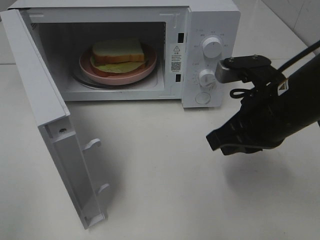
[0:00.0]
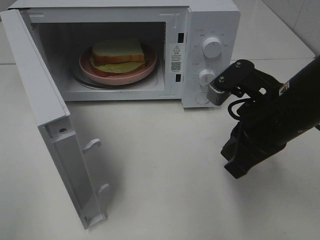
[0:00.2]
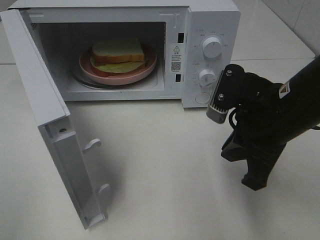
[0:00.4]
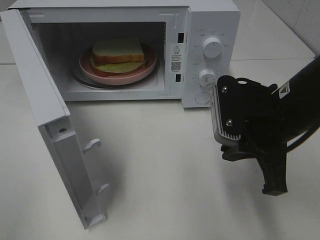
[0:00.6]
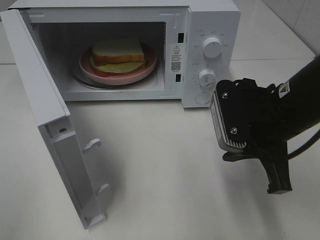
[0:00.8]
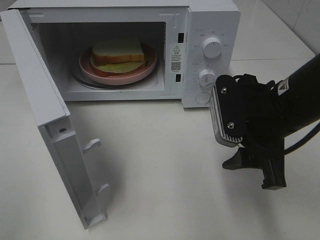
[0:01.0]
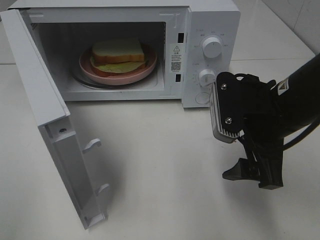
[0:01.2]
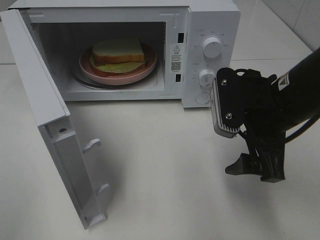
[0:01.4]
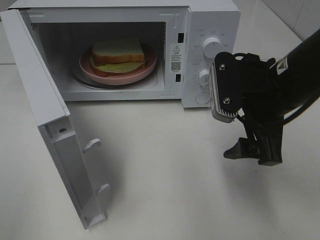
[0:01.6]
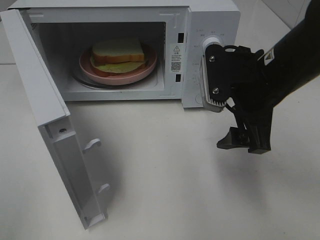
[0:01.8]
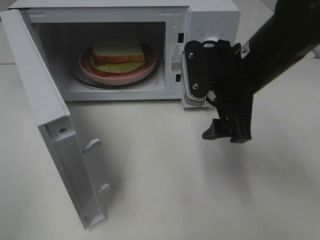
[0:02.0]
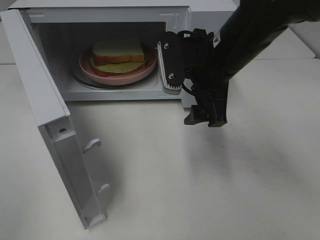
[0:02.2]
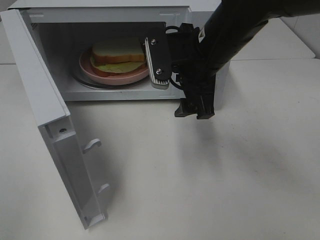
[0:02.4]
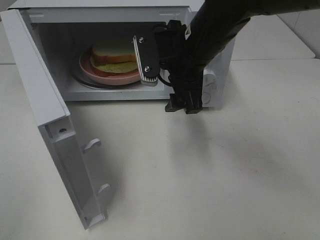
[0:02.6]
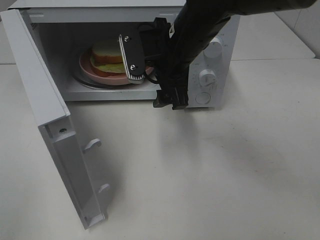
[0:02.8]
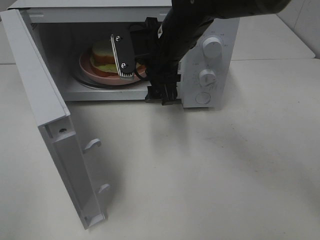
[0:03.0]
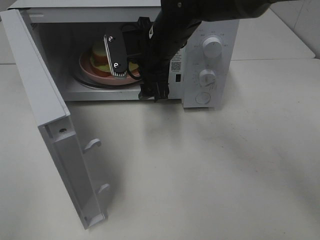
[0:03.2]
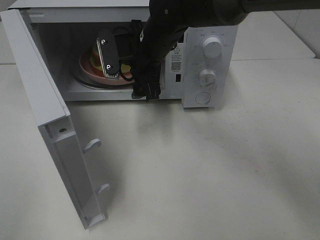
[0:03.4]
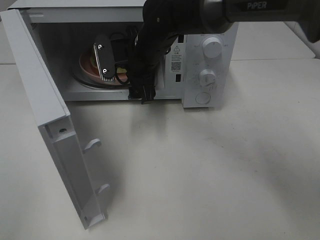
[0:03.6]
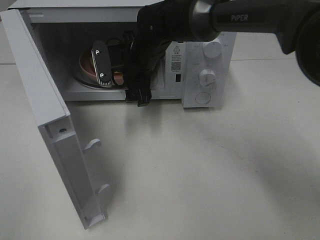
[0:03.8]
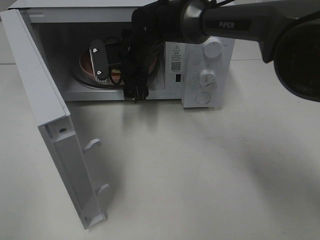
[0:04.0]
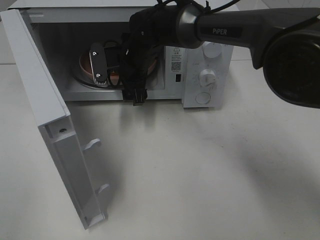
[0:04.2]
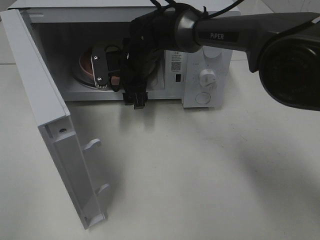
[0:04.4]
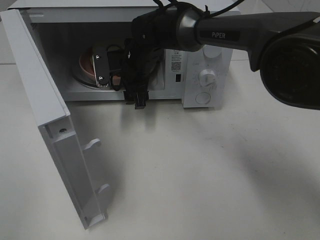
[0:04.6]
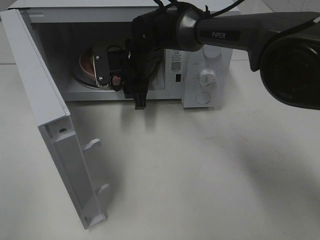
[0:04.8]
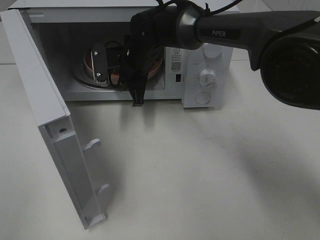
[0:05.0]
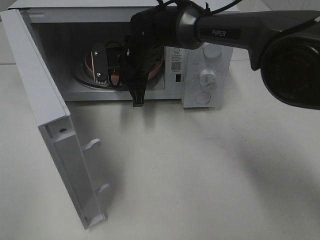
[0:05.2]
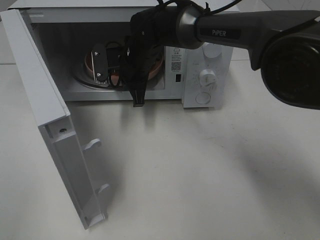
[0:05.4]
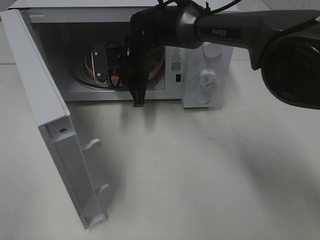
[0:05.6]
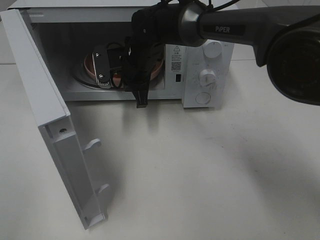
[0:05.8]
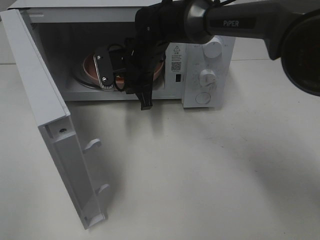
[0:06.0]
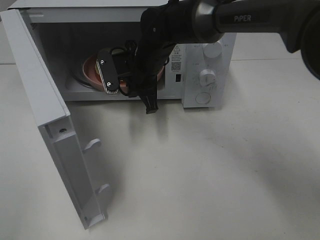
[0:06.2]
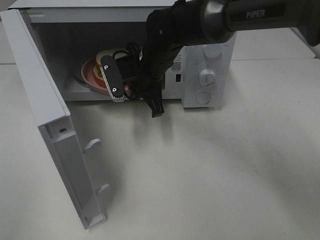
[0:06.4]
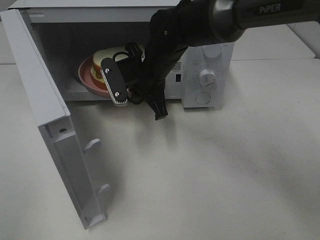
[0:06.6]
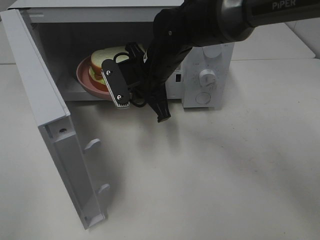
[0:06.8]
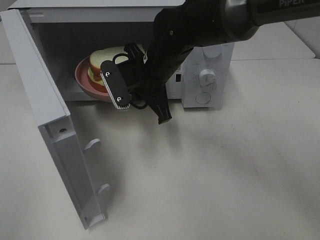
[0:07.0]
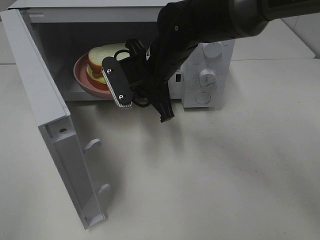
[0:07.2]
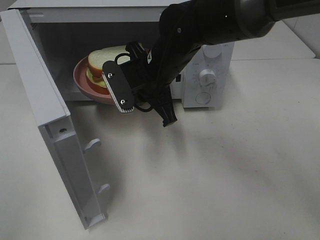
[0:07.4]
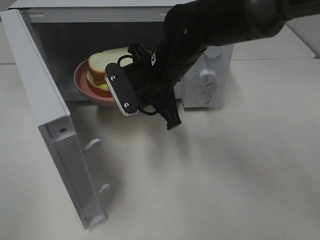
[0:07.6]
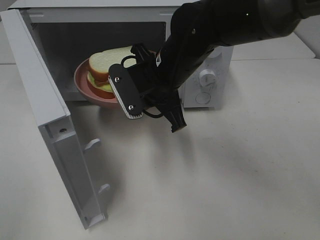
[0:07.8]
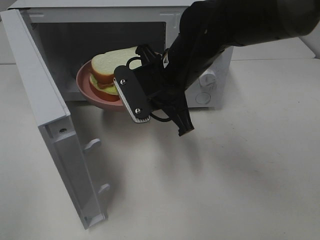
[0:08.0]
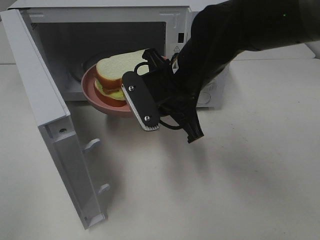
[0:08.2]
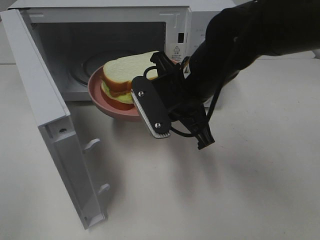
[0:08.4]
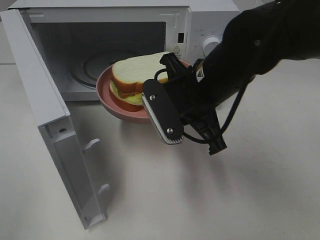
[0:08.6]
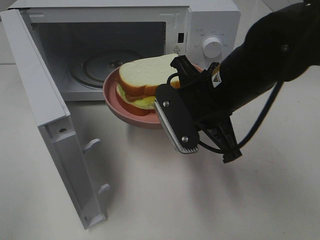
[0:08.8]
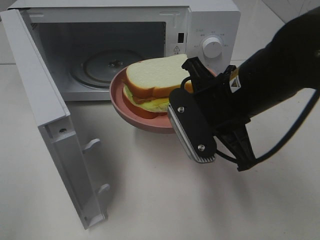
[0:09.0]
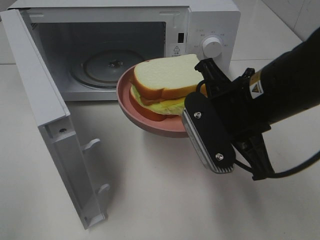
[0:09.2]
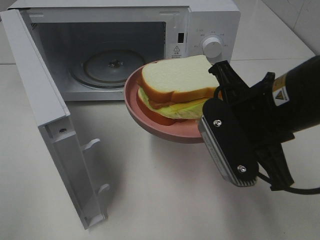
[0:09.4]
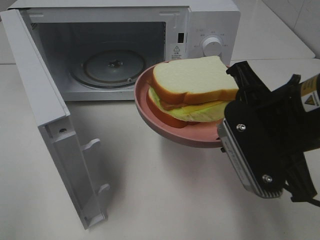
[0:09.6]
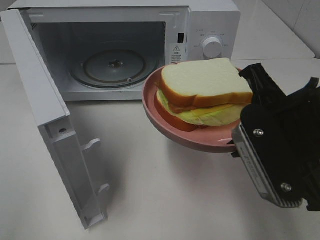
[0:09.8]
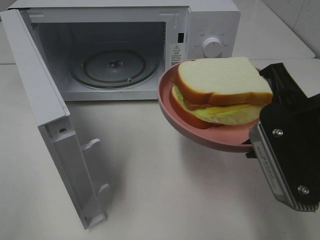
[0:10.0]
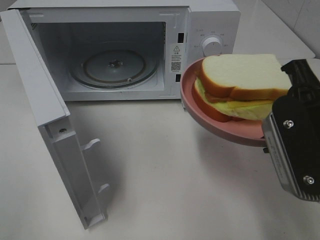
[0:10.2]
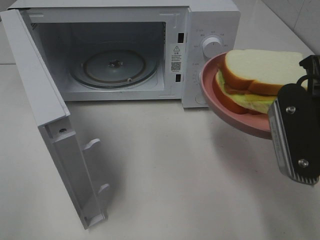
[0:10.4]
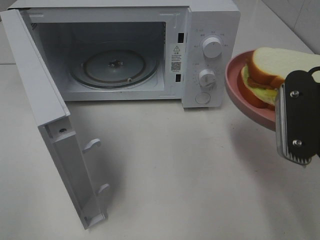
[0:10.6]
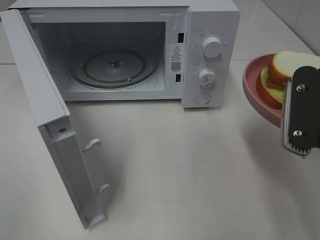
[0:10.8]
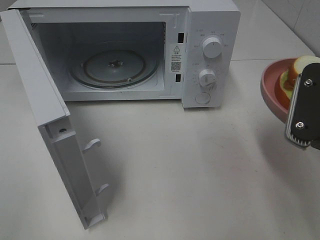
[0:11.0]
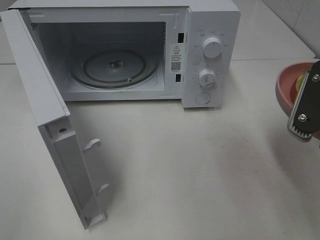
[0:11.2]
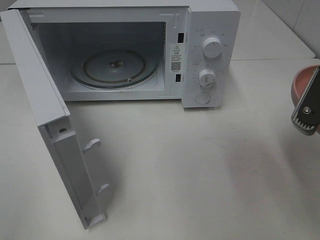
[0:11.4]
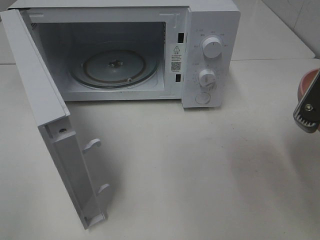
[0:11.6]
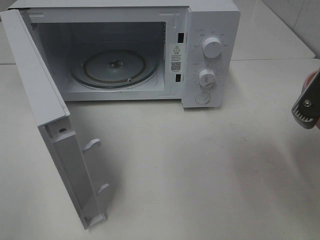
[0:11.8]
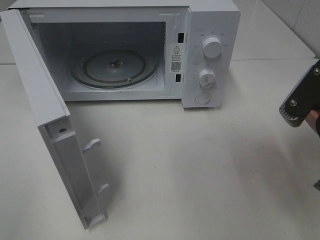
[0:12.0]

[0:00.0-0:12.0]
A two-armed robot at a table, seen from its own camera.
Task of the whole recording: Heat Sandwich.
Step, 0:00.0 to 0:05.4: Right hand: grab the plate with the sandwich.
0:00.0 to 0:01.6: The right gripper opens up.
0:01.6 to 0:03.0: The right gripper goes some 20 cm to the left and forward.
0:03.0 to 0:04.4: The right gripper travels forward, downward and to the left by some 10 cm.
0:04.4 to 0:06.0: The right gripper closes up.
0:06.0 to 0:07.6: The right gripper travels backward by some 10 cm.
0:07.6 to 0:09.0: The right gripper travels backward and to the right by approximately 15 cm.
0:09.0 to 0:10.4: The right gripper goes about 10 cm to the right and backward.

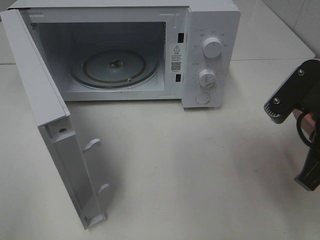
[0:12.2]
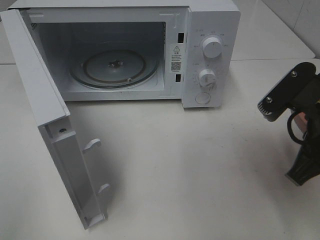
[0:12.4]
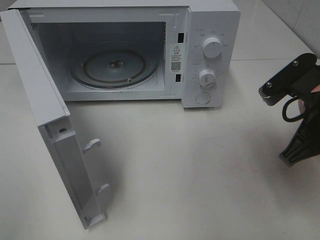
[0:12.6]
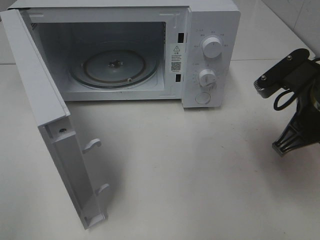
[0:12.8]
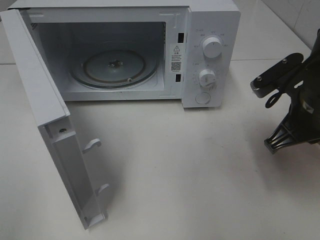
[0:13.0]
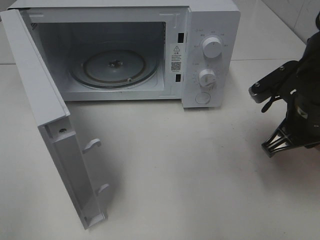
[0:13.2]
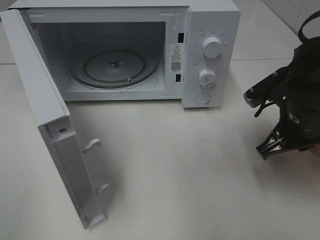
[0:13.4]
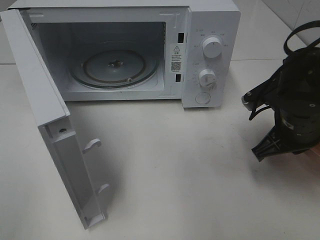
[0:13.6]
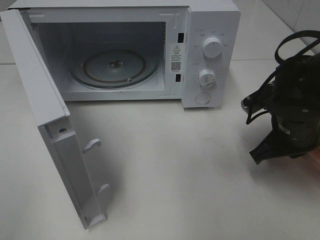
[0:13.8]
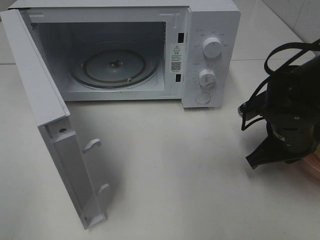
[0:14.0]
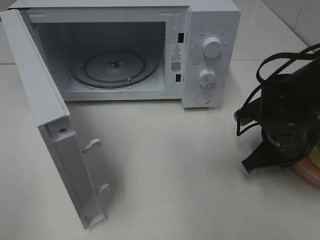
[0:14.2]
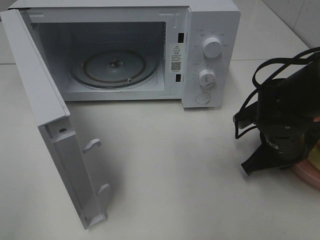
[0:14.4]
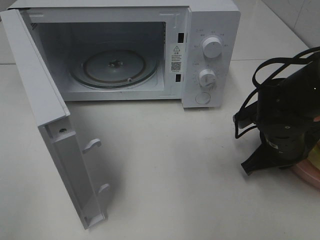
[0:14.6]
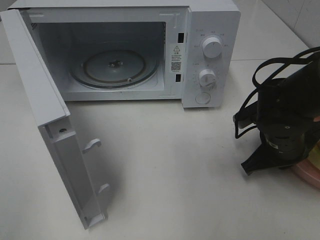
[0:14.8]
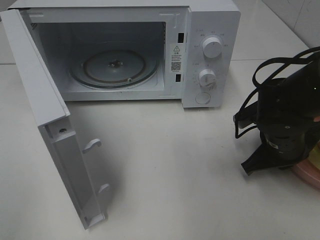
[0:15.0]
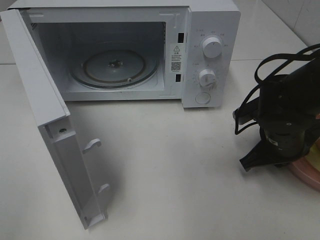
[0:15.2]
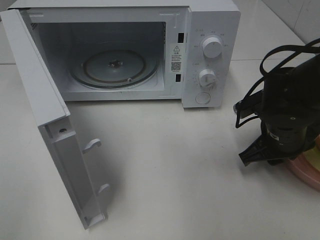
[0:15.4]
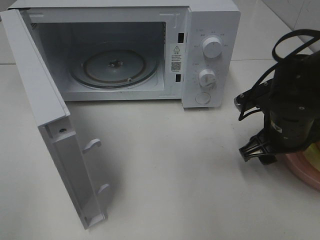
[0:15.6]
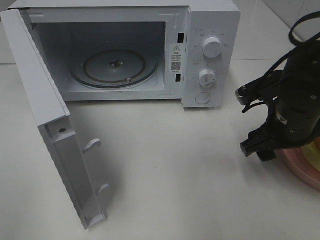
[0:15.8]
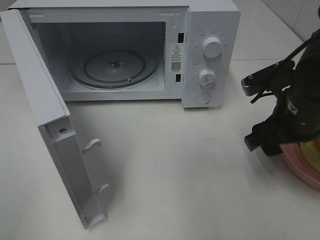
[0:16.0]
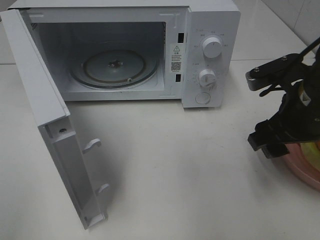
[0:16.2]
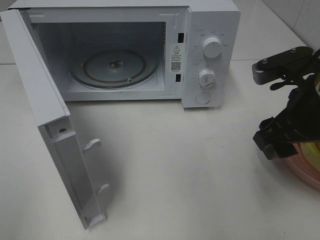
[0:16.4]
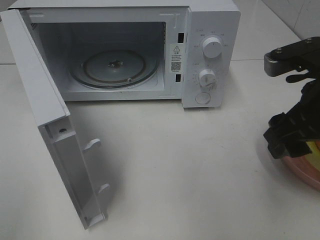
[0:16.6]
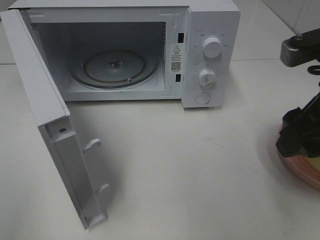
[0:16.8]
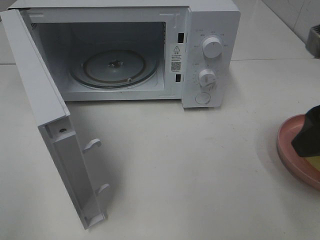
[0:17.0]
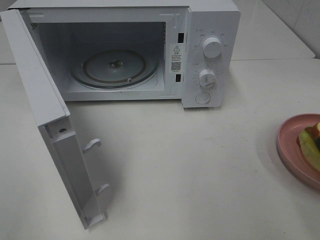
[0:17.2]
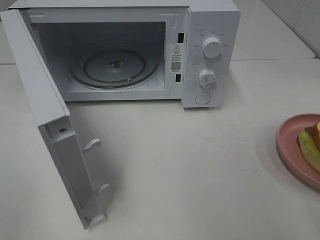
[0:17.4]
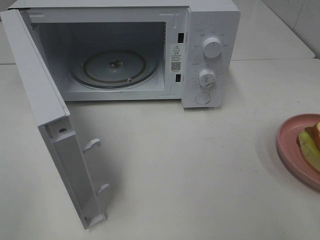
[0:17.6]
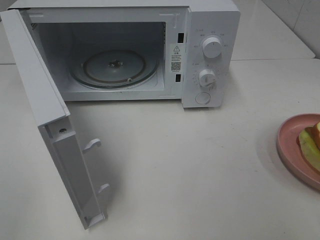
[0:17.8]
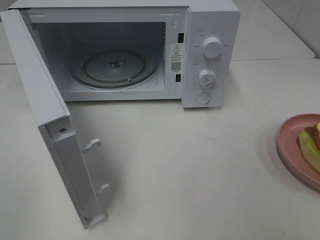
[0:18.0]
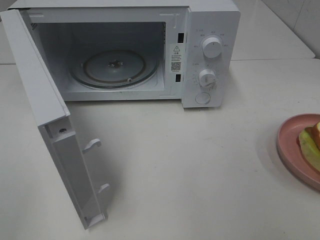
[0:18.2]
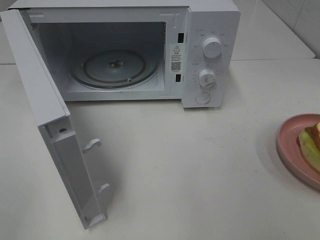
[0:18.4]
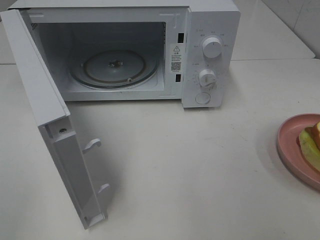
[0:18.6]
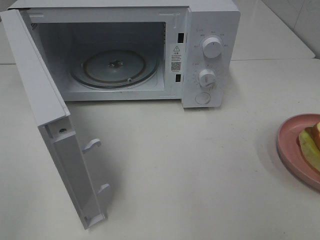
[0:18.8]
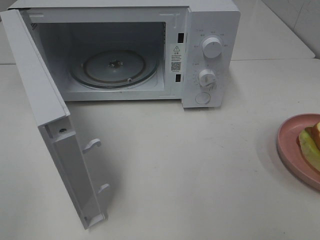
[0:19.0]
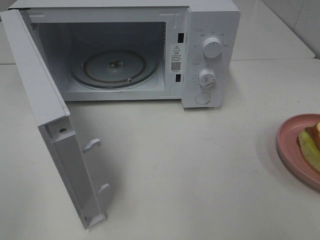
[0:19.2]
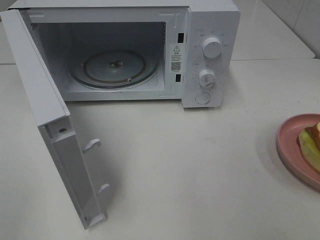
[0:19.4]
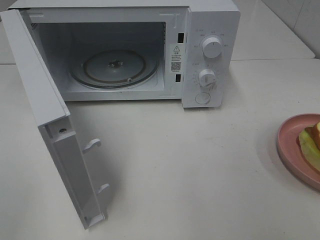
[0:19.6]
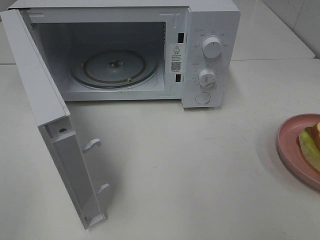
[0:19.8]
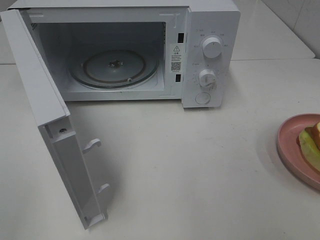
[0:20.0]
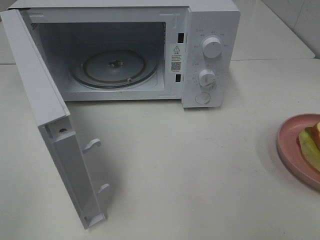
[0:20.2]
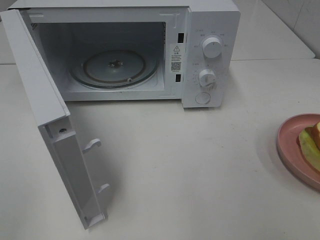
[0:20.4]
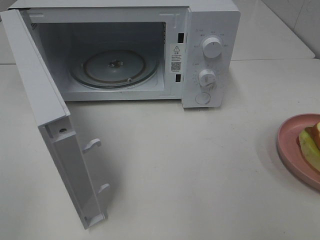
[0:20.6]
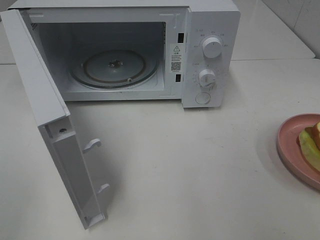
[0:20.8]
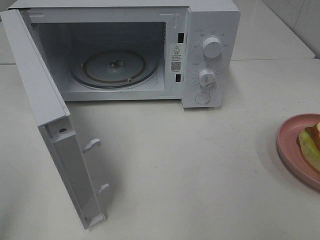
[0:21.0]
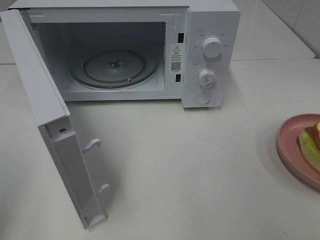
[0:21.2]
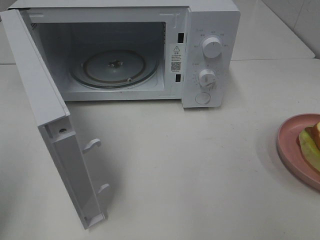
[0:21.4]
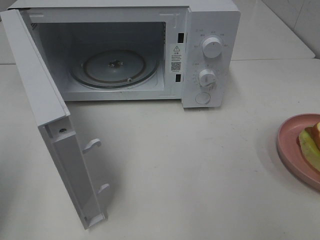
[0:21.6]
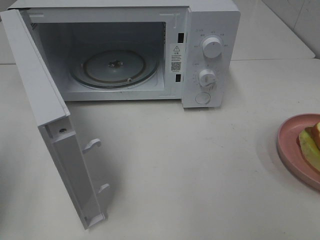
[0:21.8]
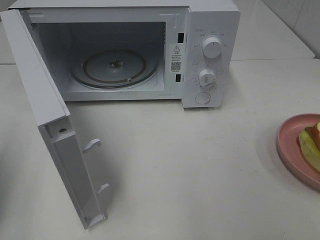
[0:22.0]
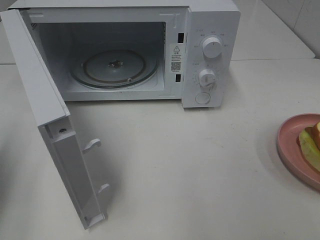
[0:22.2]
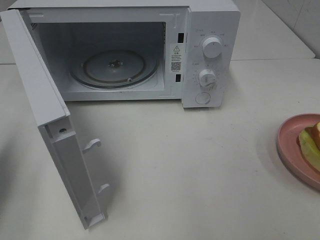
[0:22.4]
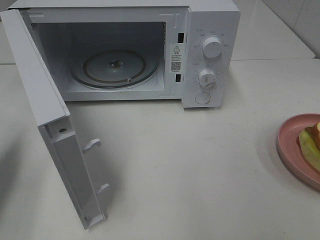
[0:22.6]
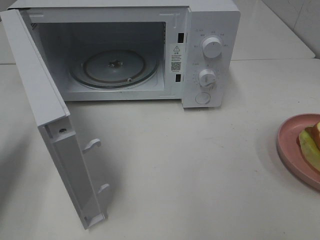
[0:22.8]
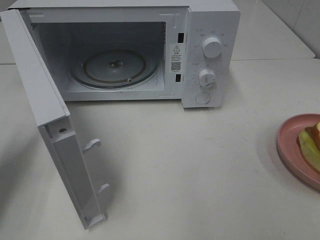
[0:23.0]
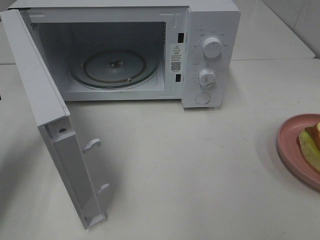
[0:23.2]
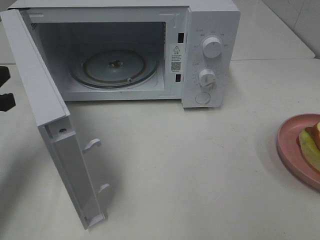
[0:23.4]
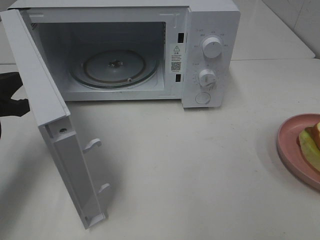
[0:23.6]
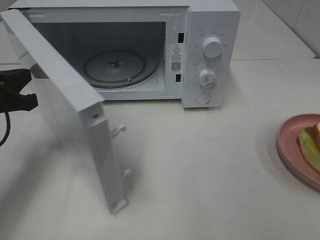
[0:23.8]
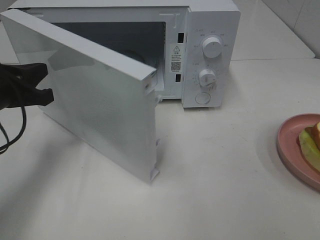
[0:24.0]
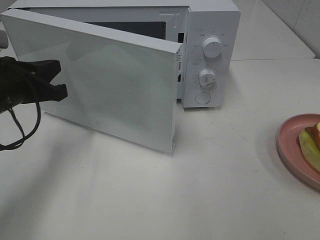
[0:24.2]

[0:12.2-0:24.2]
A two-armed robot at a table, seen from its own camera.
Task of the whole recording: Heat Sandwich.
Step, 0:12.2 to 0:16.8: Right hand: place the plate on the table.
0:12.2 to 0:13.8: The right gripper is displaced forward and downward by approximately 15 cm.
0:13.8 to 0:15.2: There are only small adjustments of the grippers.
0:15.2 to 0:16.6: The right gripper travels upward and backward by some 15 cm, and opens its fingers.
0:16.6 to 0:18.2: The right gripper moves backward and to the right, approximately 20 cm.
0:21.2 to 0:22.6: The left gripper shifts approximately 15 cm forward and downward.
0:22.6 to 0:24.2: The left gripper travels to the right and forward by approximately 15 cm.
